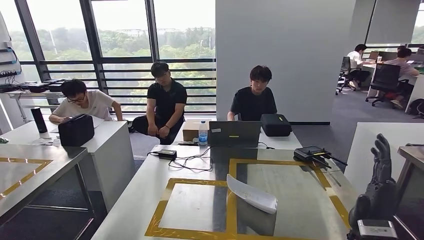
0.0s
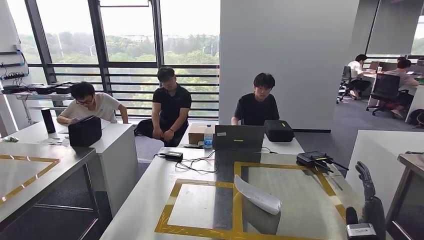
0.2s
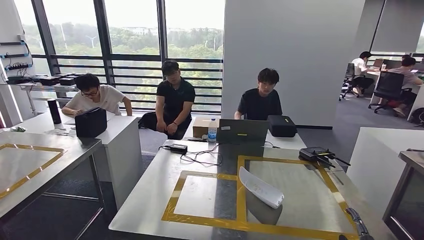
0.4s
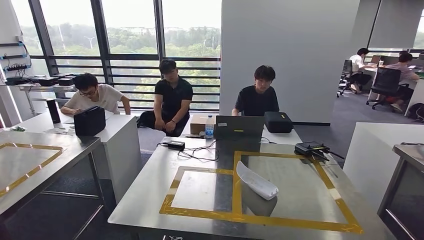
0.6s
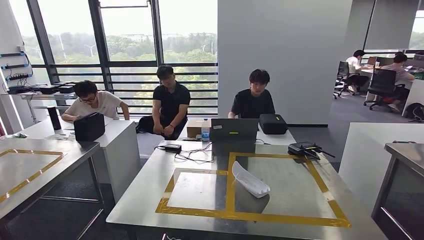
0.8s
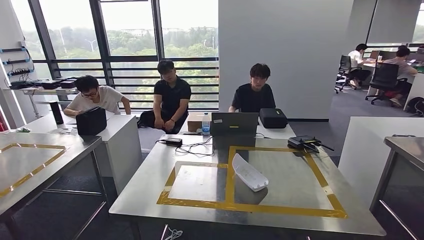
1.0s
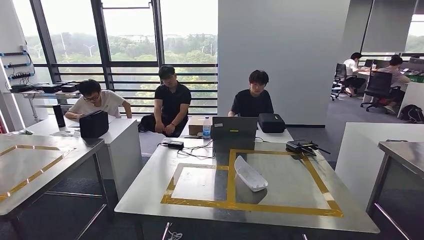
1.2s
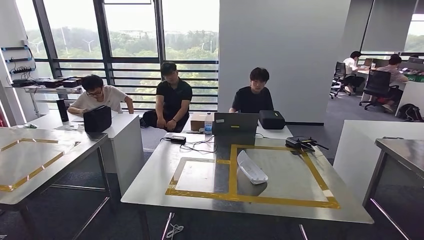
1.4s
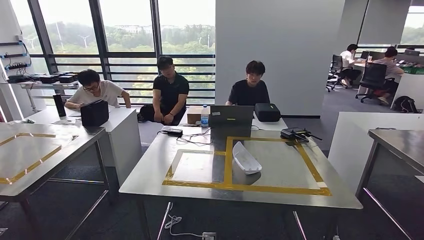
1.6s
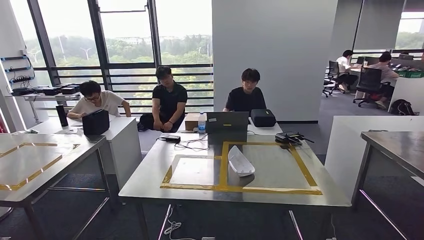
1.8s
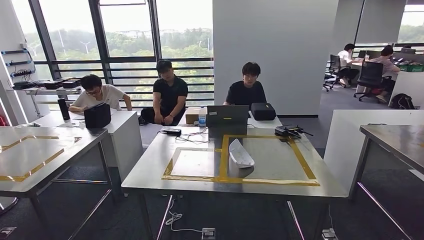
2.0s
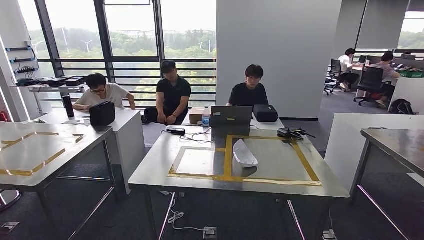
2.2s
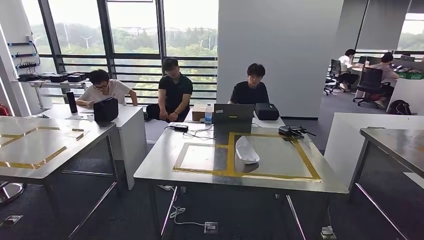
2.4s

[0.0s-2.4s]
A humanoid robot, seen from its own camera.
Step, 0.0s to 2.2s: Move to the initial position of the workbench.
